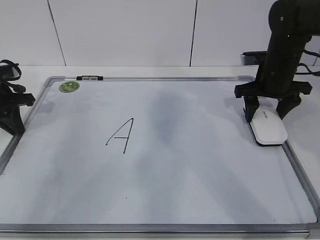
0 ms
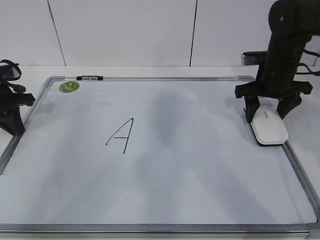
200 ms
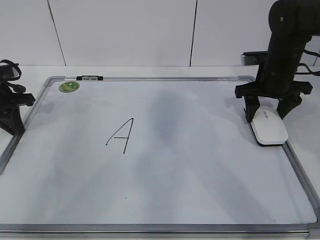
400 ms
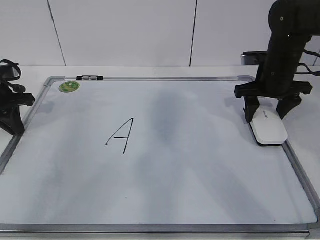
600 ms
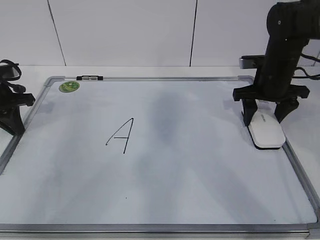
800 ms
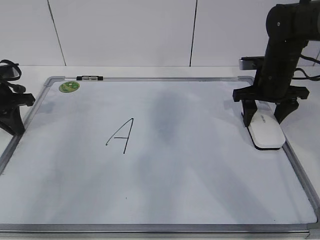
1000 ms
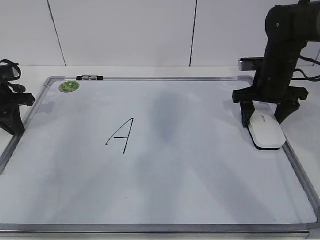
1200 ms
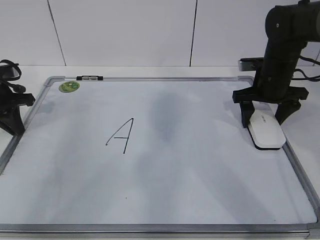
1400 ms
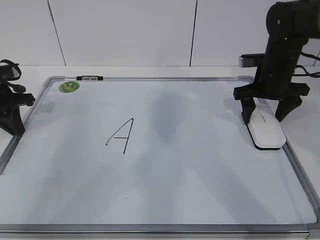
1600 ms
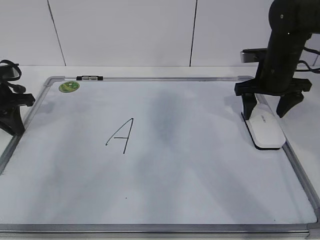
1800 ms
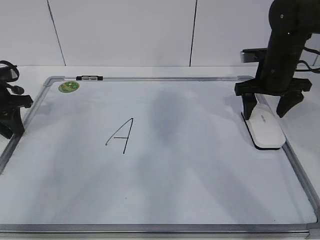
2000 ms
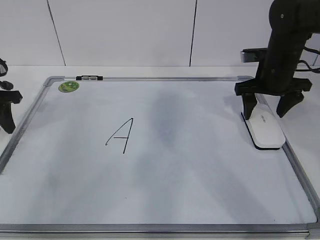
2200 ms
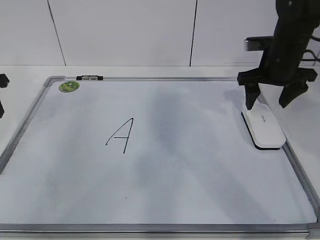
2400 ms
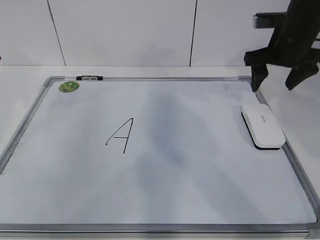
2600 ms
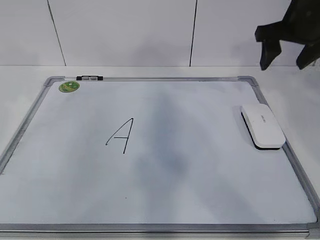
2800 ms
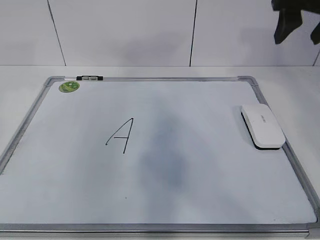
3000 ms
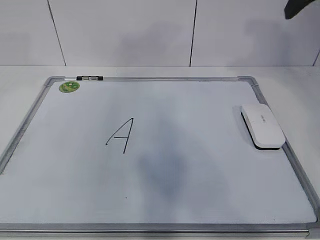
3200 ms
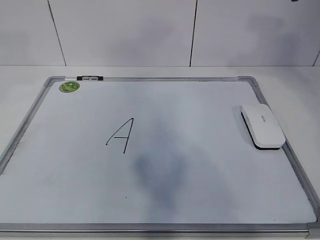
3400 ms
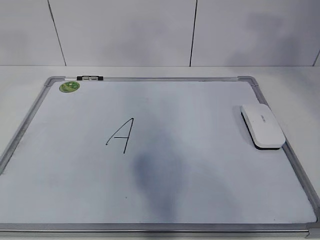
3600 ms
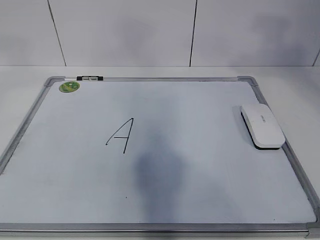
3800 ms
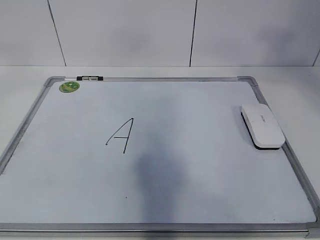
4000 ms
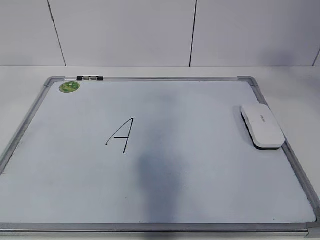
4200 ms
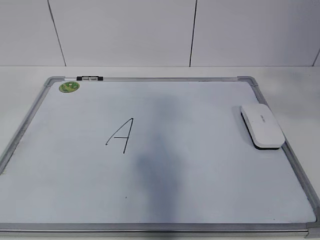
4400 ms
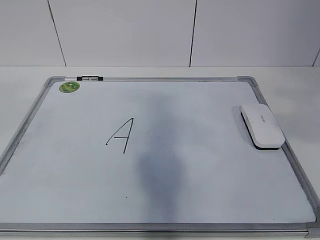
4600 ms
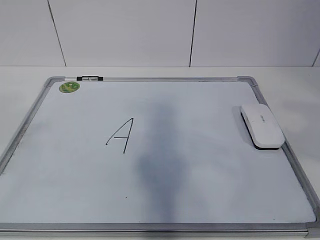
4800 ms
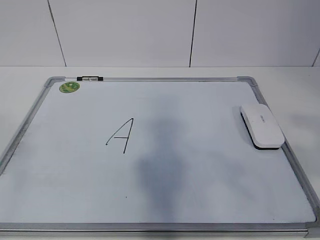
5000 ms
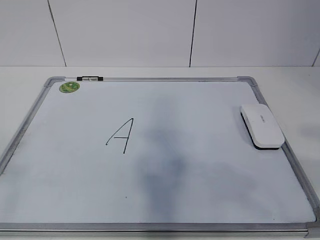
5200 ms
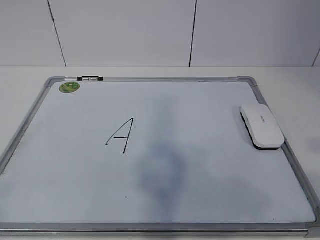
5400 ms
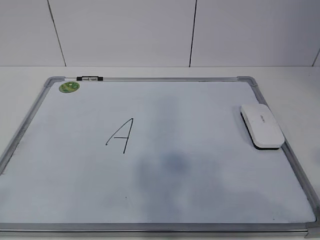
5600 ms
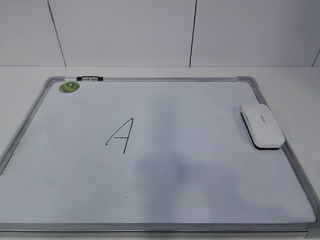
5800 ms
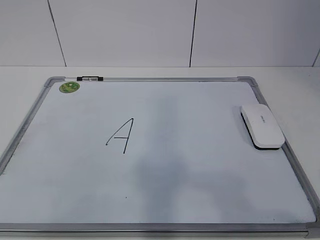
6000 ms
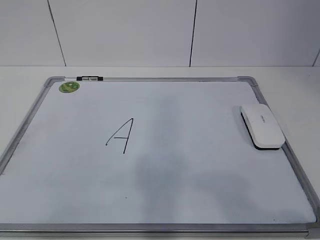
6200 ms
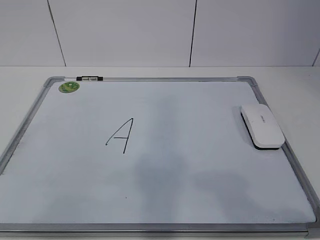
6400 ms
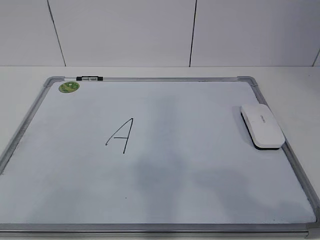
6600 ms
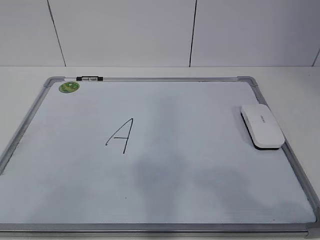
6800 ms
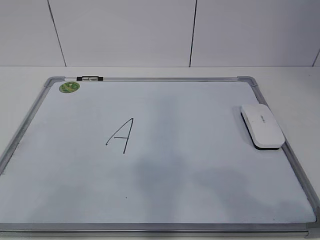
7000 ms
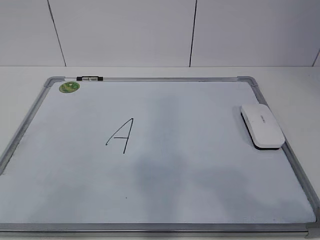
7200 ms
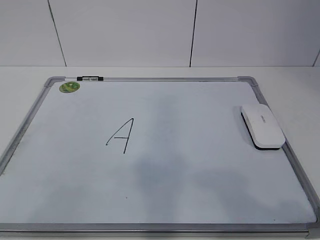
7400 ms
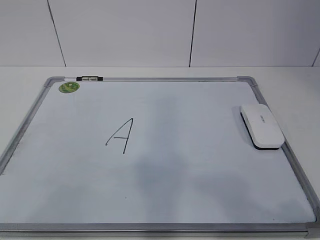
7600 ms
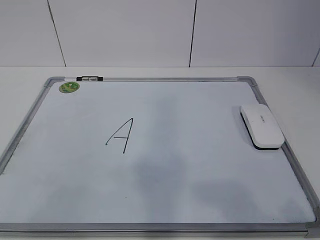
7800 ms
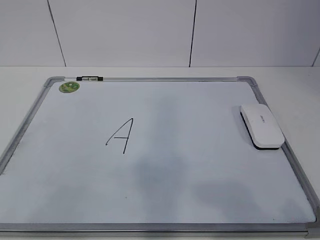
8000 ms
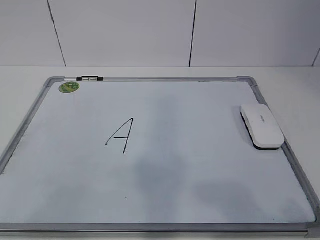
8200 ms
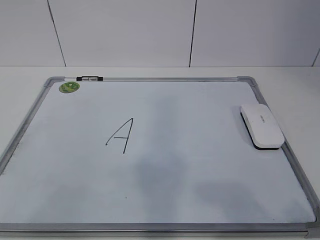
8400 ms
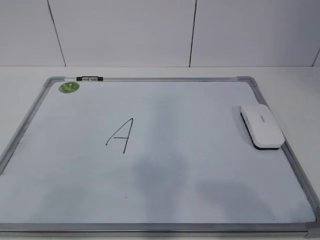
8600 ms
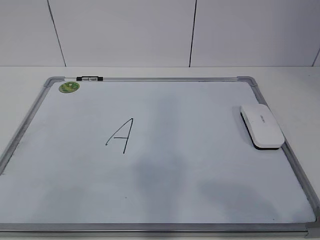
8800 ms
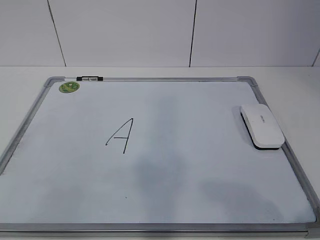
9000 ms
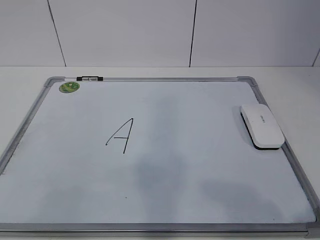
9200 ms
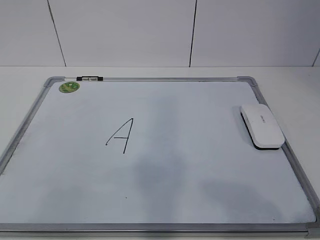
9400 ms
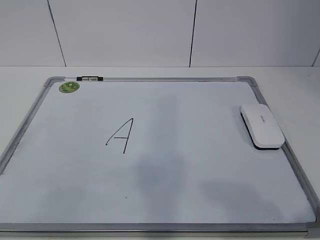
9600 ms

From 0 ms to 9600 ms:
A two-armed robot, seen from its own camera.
Task of the whole recording: pick up the eraser on the blackboard and erase the letter "a".
From 0 ms to 1600 ms: The right gripper opens up.
From 1600 ms to 3200 ms: Both grippers move upward and backward, some 25 cm. The left gripper opens up. The right gripper closes its fingers.
From 3200 ms to 4800 ms: The grippers both shift backward by about 25 cm.
From 4800 ms to 6400 ms: The left gripper heads downward, covering some 20 cm. Meanwhile the right gripper shifts roughly 15 cm downward and backward.
